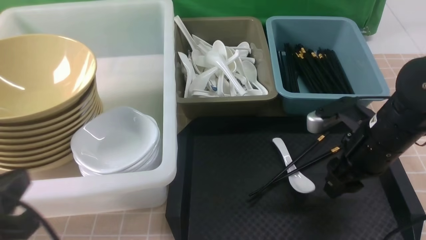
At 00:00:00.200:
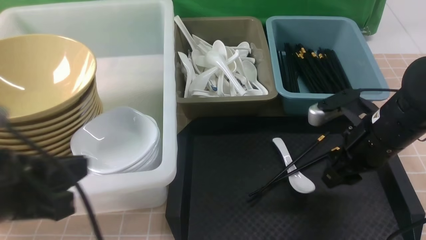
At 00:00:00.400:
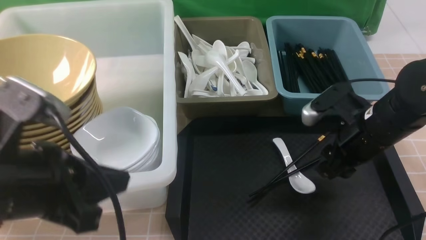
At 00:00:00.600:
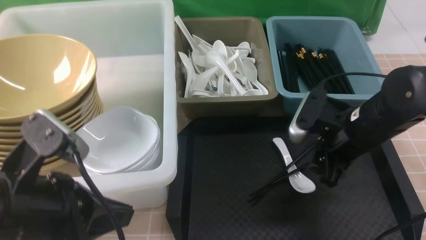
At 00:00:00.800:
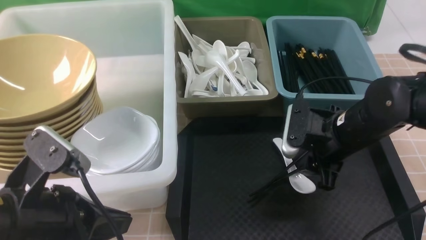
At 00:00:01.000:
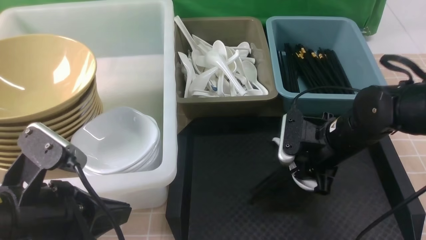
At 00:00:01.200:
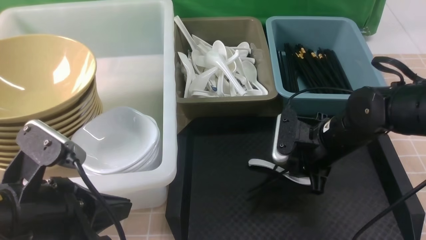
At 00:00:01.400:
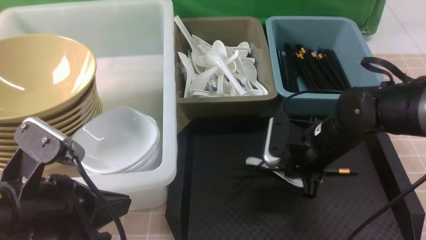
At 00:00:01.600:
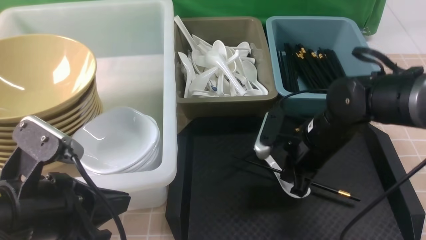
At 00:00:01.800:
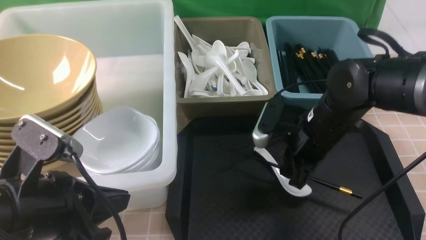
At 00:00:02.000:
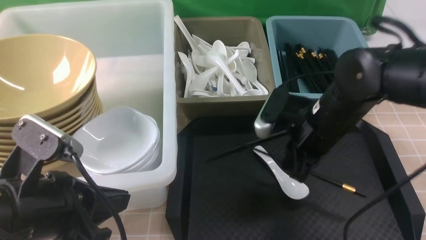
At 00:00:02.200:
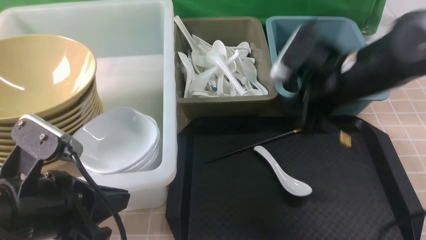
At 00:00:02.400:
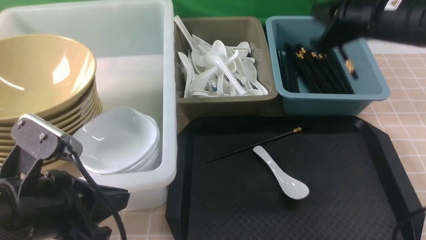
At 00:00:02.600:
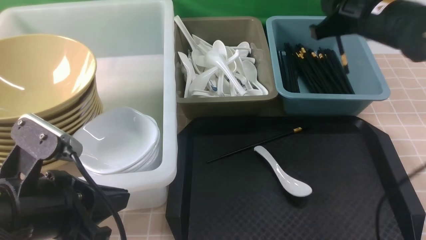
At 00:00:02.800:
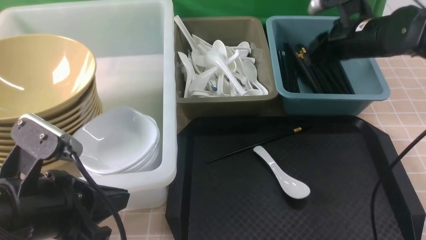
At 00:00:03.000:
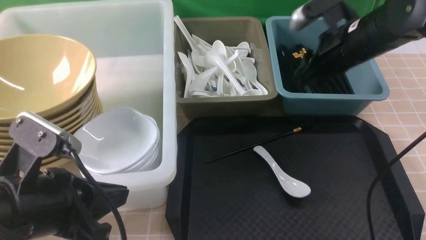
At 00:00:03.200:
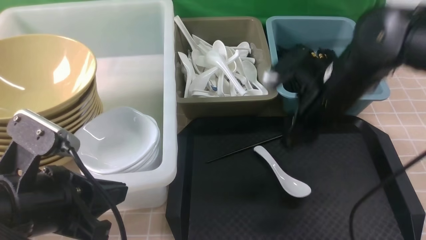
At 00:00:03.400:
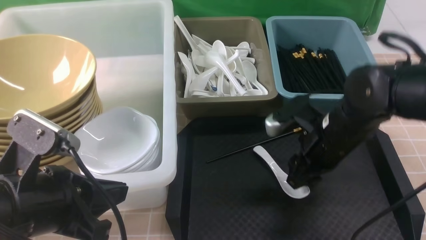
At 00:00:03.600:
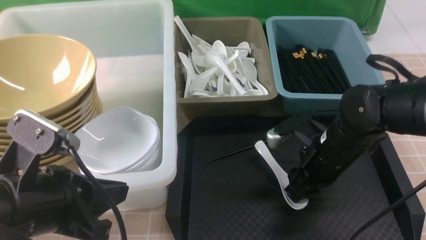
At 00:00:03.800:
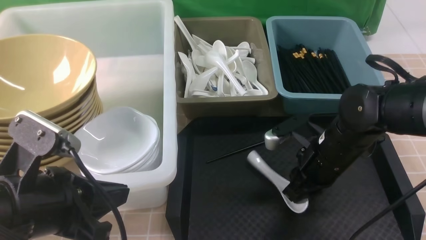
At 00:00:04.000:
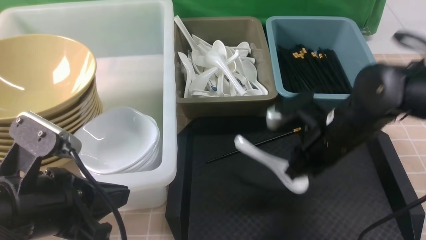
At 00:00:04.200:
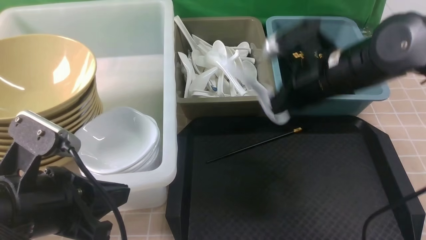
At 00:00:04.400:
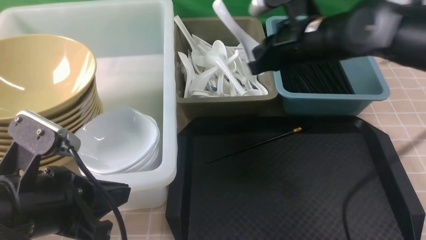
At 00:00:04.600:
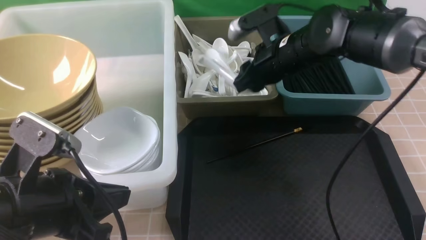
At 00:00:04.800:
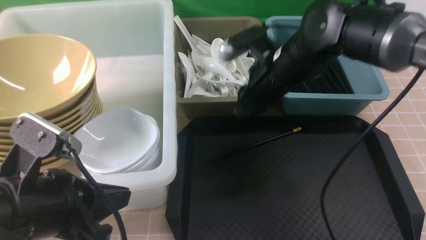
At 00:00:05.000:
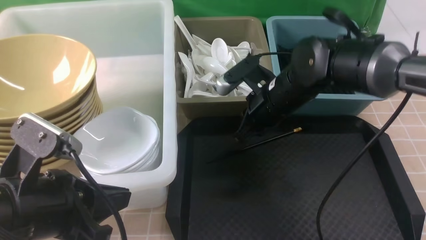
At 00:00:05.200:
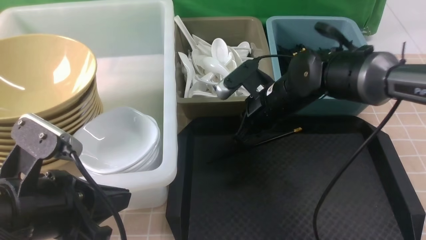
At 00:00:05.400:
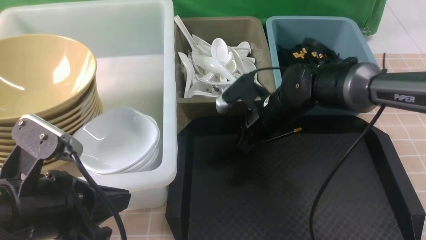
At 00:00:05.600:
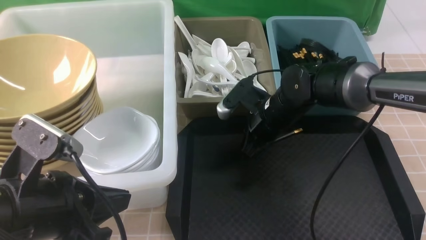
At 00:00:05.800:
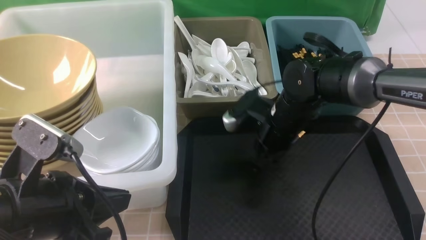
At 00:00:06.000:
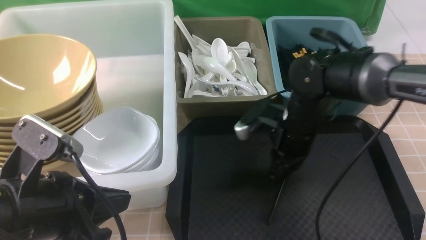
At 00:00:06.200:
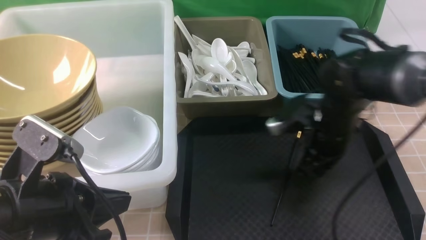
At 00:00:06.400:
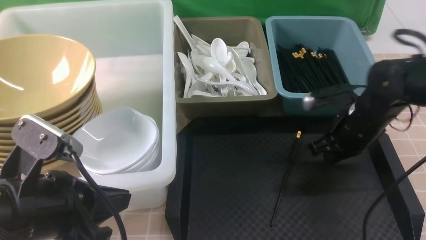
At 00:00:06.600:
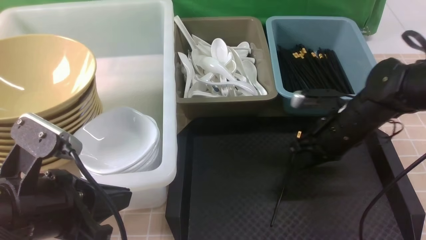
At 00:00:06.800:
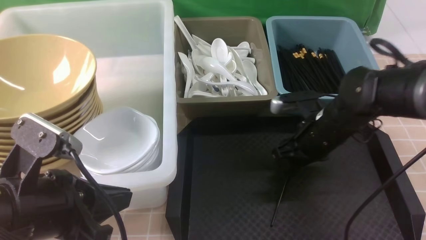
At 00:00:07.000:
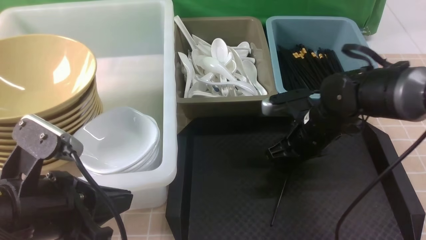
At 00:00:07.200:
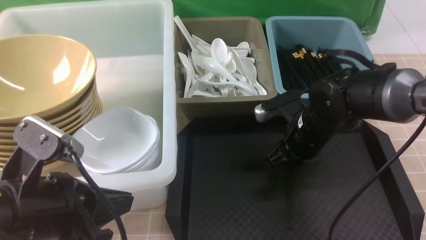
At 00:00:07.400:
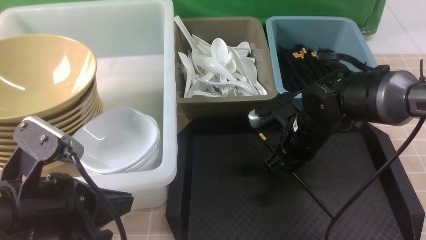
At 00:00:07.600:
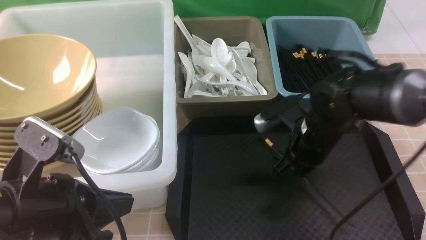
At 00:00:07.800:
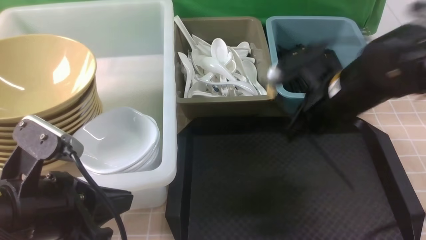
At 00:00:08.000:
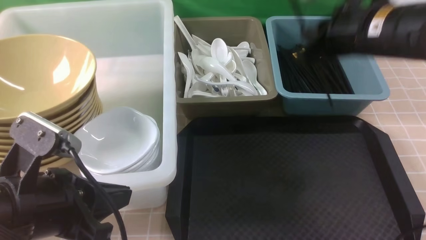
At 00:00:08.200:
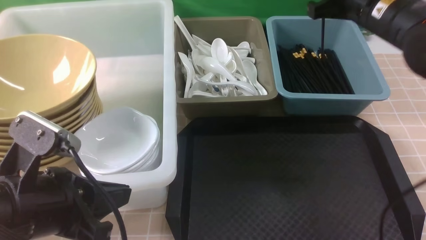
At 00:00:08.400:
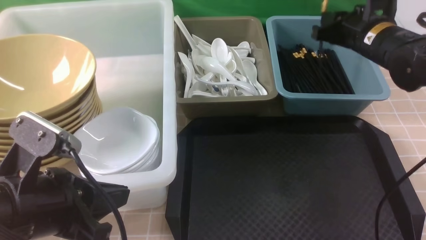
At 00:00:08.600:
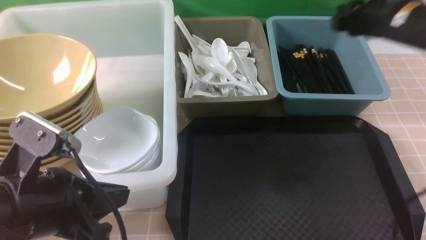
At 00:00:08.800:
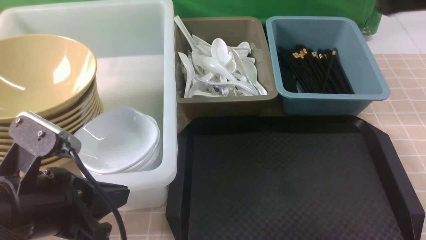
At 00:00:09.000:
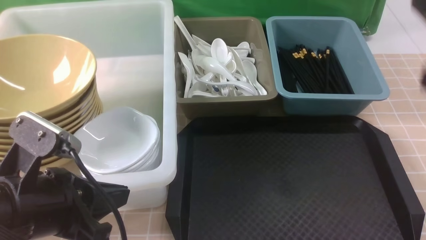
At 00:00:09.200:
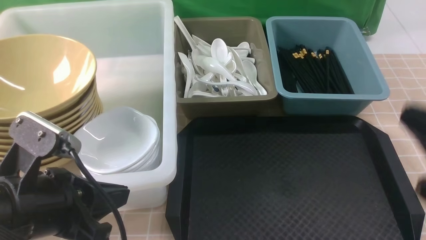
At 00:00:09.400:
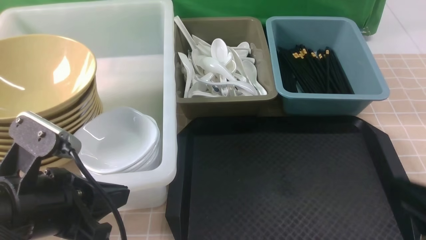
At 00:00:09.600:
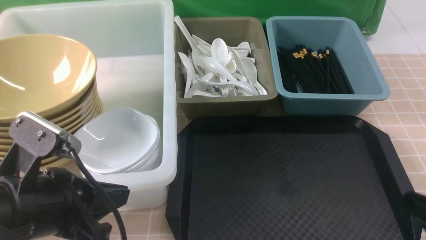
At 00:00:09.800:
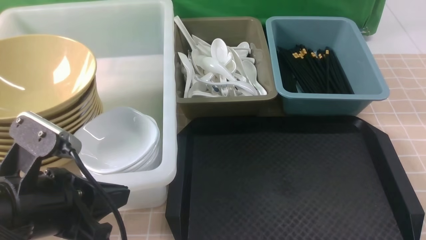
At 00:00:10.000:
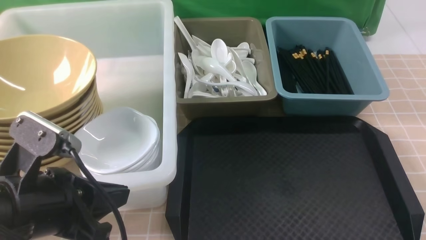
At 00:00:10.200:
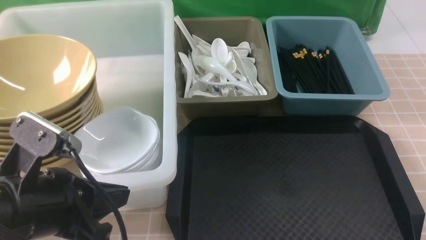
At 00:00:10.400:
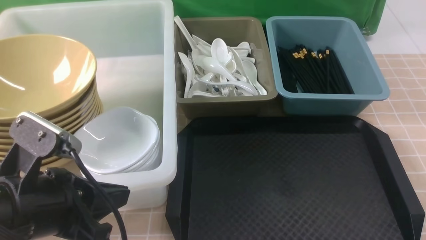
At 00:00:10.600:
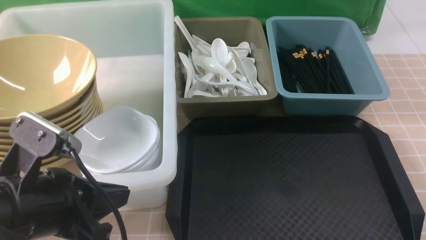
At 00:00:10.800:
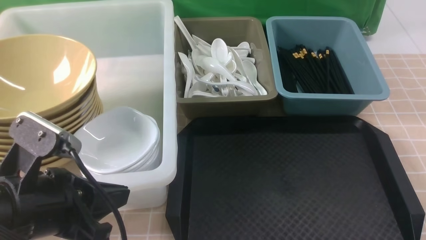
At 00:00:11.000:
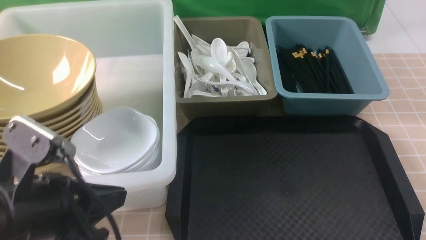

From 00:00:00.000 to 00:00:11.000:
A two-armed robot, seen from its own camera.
Task of the whole recording: on brown table put chopsticks spoon bowls plates into blue grey white boxes.
Step, from 00:00:00.000 to 00:00:02.000: use the right arm to grab a chopstick.
Step, from 00:00:02.200 to 00:00:03.000: use the right arm to put a chopstick into the small storage box on the right.
Step, from 00:00:03.200 to 00:00:04.000: use the right arm to grab the soup spoon in the middle.
Step, from 00:00:04.200 to 00:00:04.600: use the right arm to put the soup spoon into the small storage box in the middle.
Step, from 00:00:04.800 to 00:00:07.600: use the right arm to grab a chopstick.
Step, from 00:00:07.800 to 00:00:08.600: use the right arm to put a chopstick into the small storage box on the right.
From 00:00:00.000 to 00:00:01.600: The right gripper travels to the left by about 5 cm, and closes; the left gripper ends up about 5 cm from where it was.
From 00:00:01.600 to 00:00:03.200: The right gripper travels upward by about 5 cm, and opens its fingers.
From 00:00:03.200 to 00:00:04.800: The right gripper swings up and down, some 10 cm each way, with 2 reversals, and closes its fingers.
From 00:00:04.800 to 00:00:06.200: The right gripper is displaced to the right and downward by some 10 cm.
From 00:00:06.200 to 00:00:07.800: The right gripper shifts approximately 10 cm upward, and opens, then closes once more.
From 00:00:07.800 to 00:00:09.400: The right gripper is displaced backward and to the right by some 25 cm, and opens, then closes again.
From 00:00:09.400 to 00:00:11.000: The right gripper goes roughly 5 cm downward.

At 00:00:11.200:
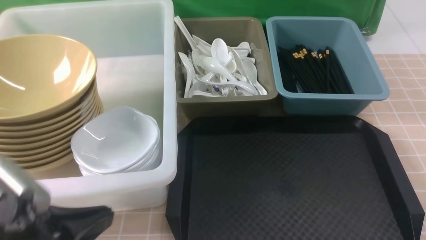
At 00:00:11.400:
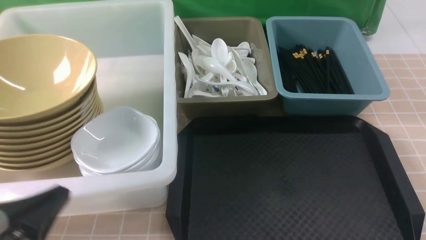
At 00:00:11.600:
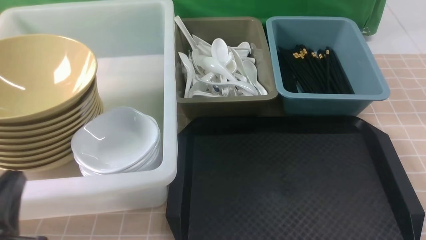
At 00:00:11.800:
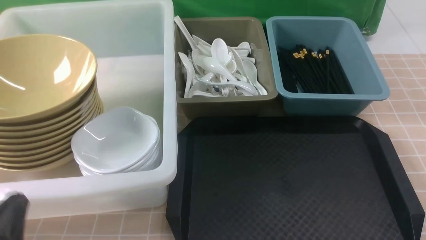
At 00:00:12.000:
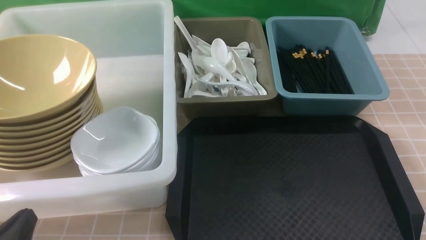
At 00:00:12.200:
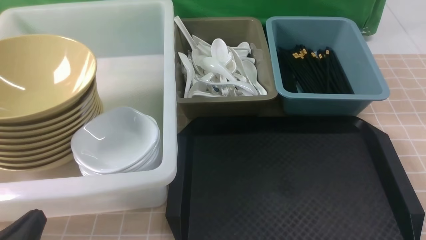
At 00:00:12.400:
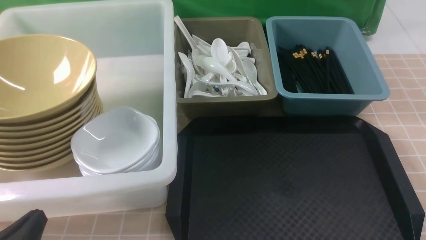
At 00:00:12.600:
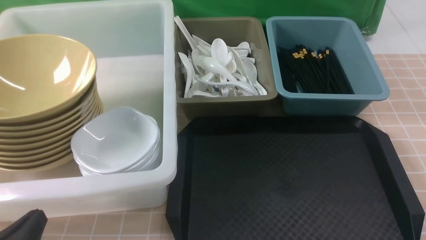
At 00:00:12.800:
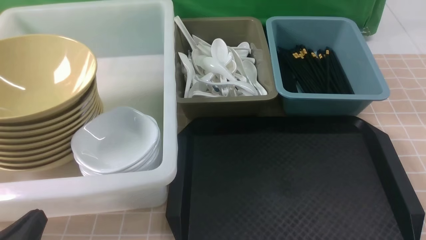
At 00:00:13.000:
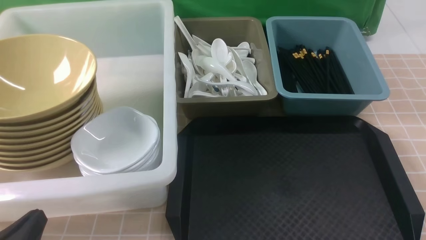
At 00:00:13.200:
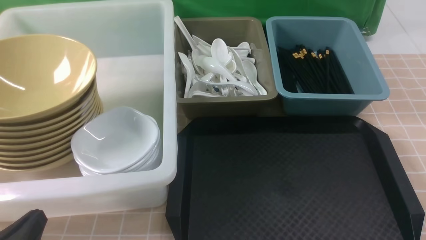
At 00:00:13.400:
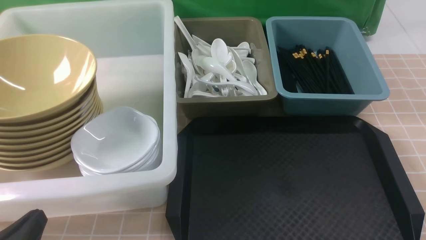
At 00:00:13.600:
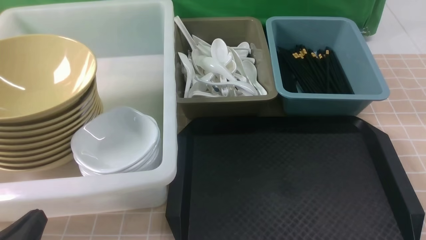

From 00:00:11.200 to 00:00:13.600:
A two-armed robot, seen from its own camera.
Task of the whole recording: on brown table put chopsticks spoon bowls plates into blue grey white boxes.
From 00:00:11.200 to 00:00:12.400: The left gripper heads downward, covering roughly 5 cm.
From 00:00:12.400 to 00:00:13.600: The two grippers keep their place.
